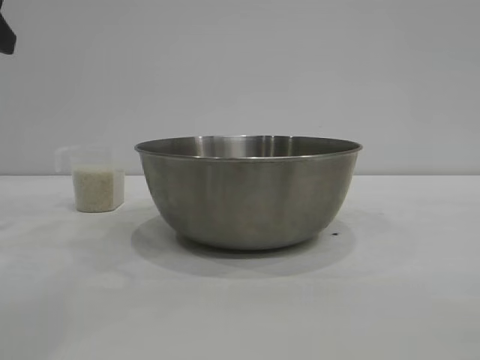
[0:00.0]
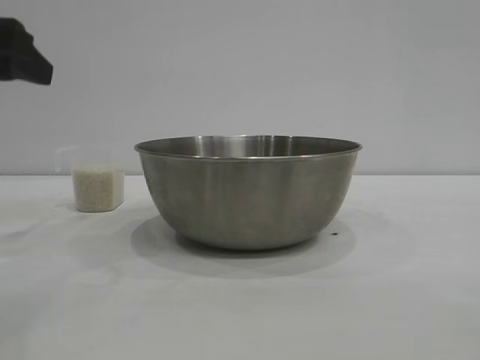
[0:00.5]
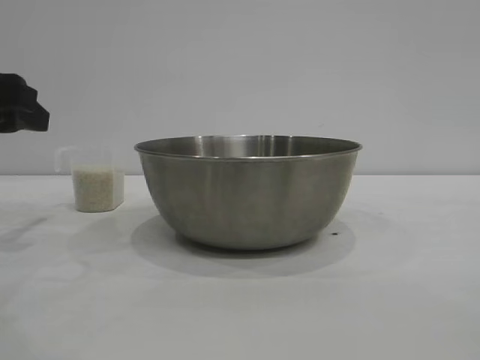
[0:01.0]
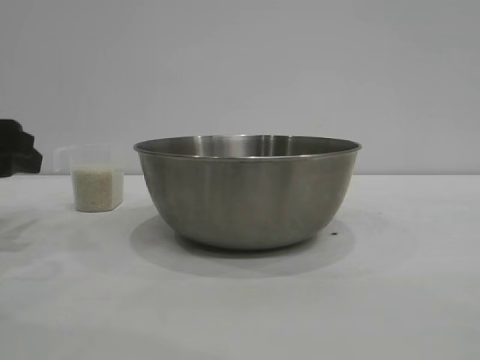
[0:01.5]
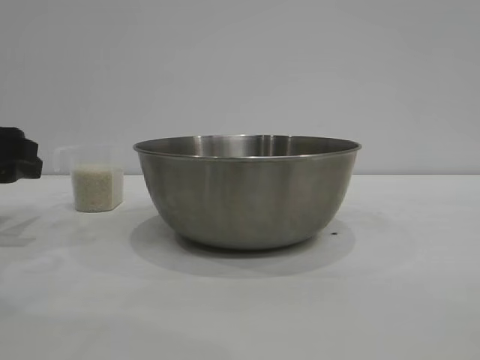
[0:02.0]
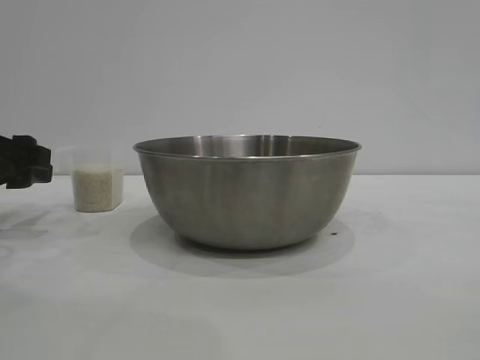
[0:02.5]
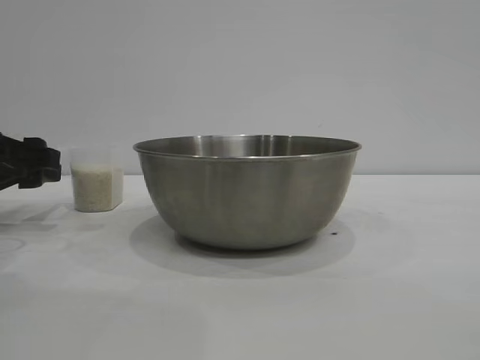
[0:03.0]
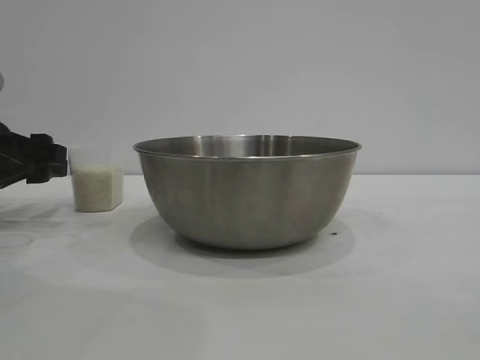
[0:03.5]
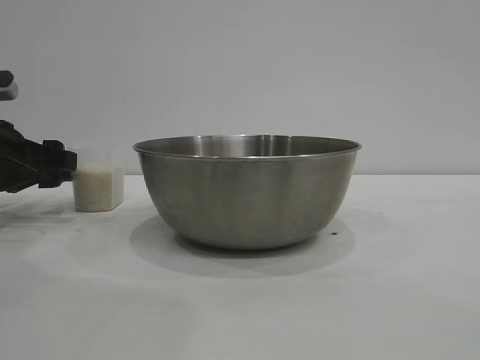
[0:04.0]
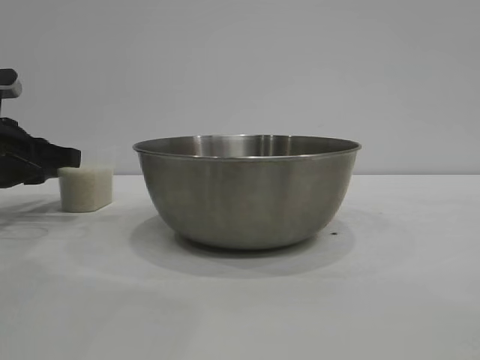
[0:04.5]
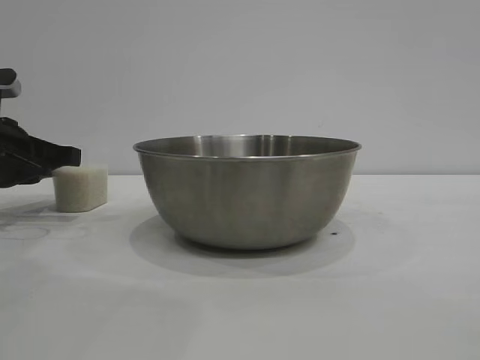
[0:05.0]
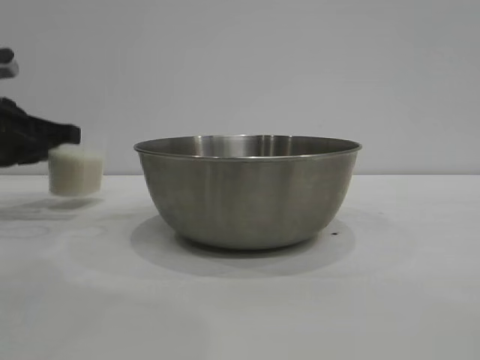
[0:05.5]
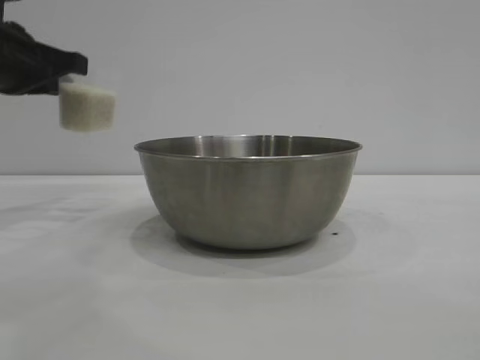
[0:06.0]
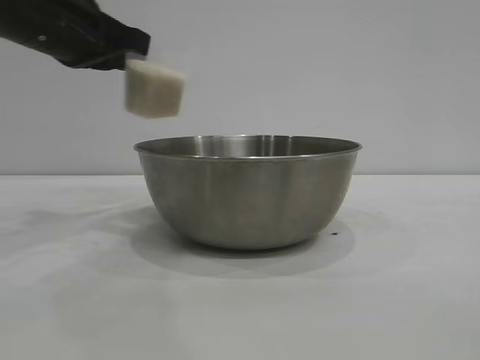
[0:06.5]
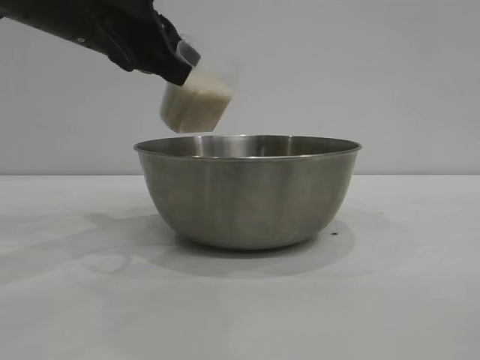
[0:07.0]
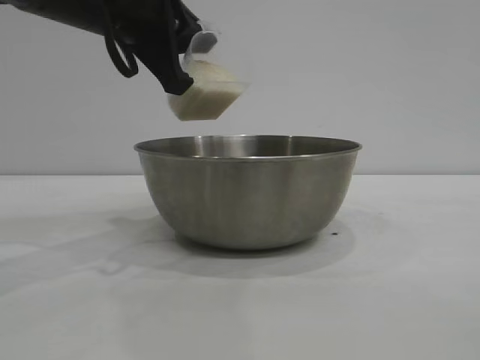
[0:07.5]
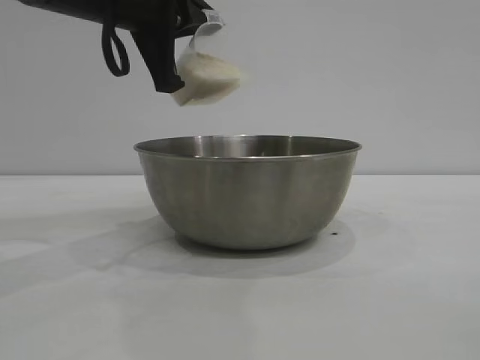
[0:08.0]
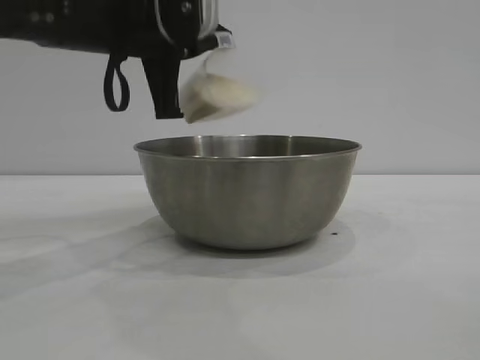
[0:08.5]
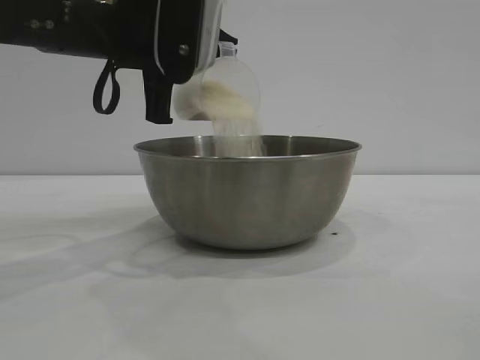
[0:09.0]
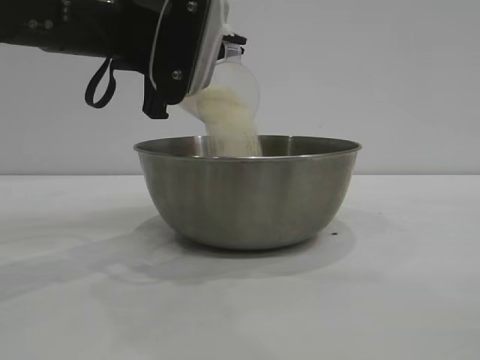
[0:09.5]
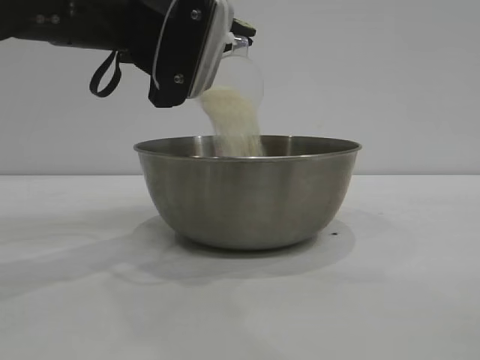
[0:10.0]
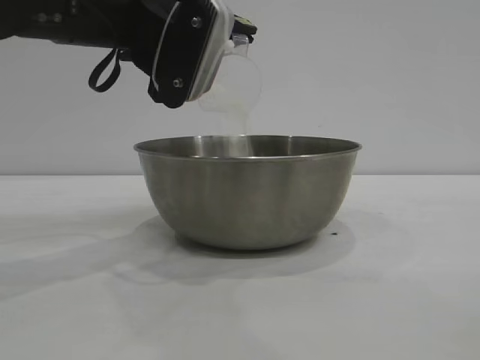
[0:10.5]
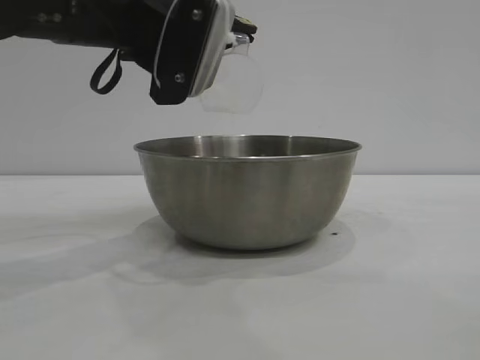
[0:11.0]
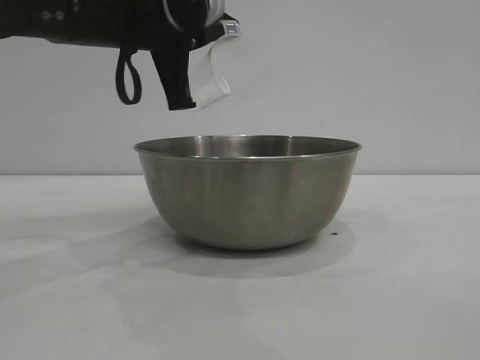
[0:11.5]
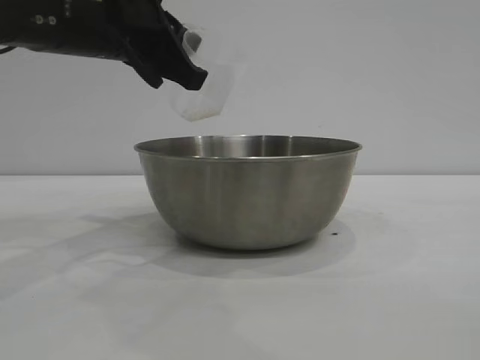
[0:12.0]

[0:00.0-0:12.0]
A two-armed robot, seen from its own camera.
Task of the whole recording: the right gripper grasp the rice container and place it in the center of the table, the left gripper grasp the rice scoop and pour the rice into the rice container.
Step, 0:00.0 to 0:05.5: Pick up the cup with rice in it with the left gripper.
Step, 0:06.0 to 0:10.5: Pour the rice from the cup into the bowl with the left gripper.

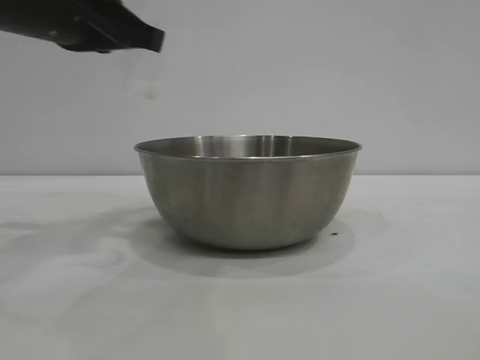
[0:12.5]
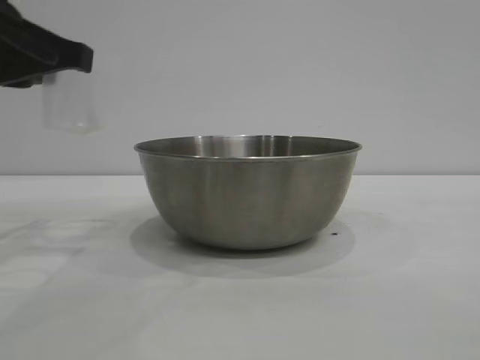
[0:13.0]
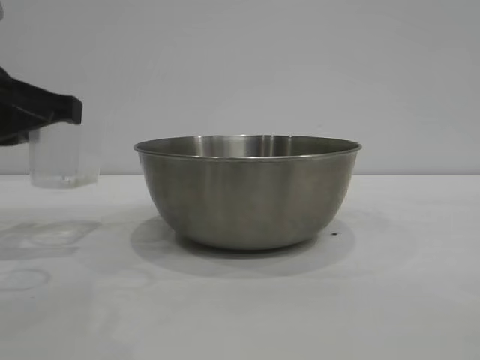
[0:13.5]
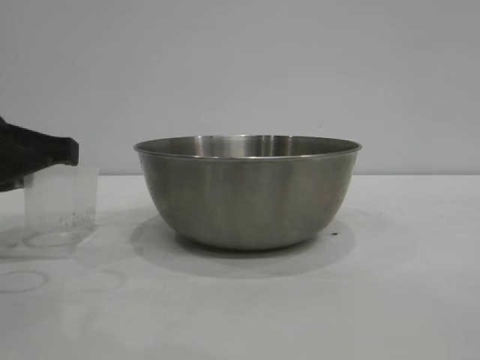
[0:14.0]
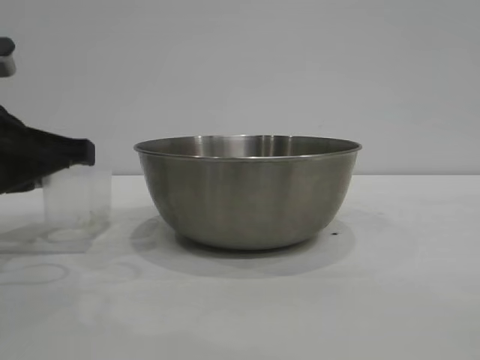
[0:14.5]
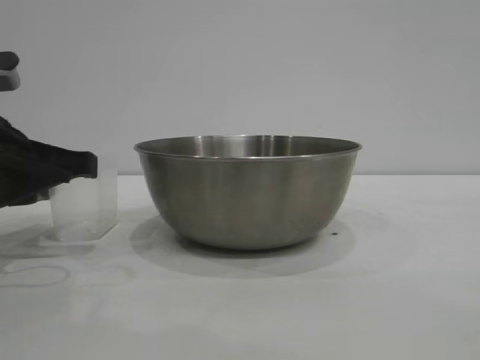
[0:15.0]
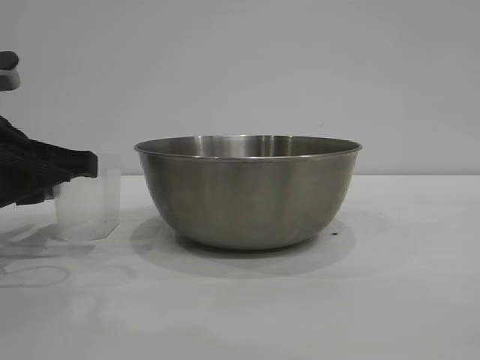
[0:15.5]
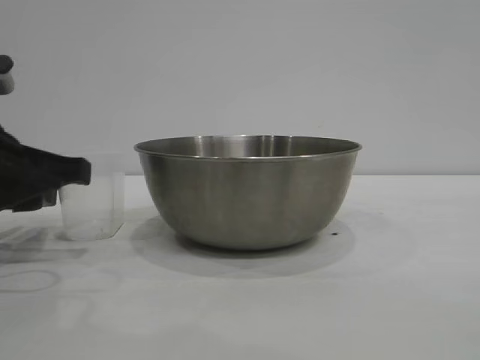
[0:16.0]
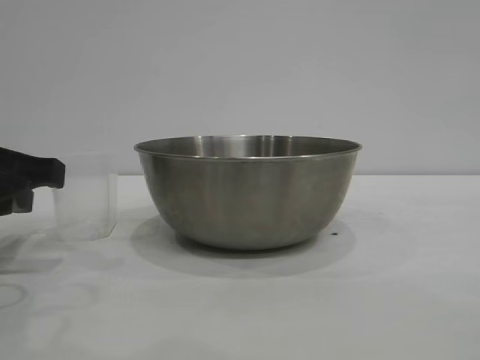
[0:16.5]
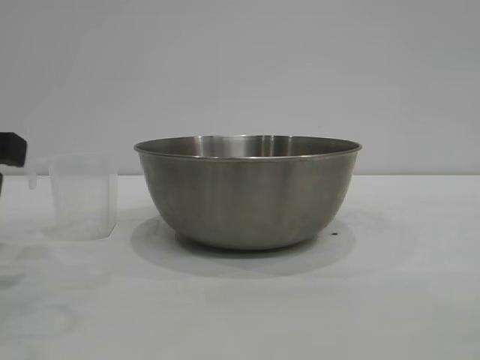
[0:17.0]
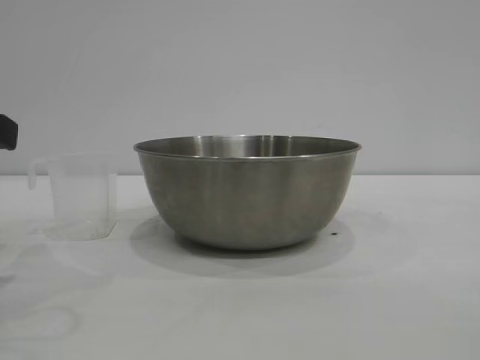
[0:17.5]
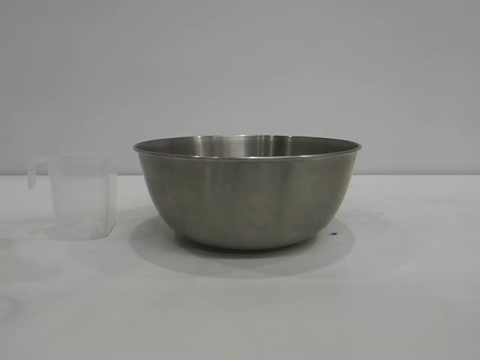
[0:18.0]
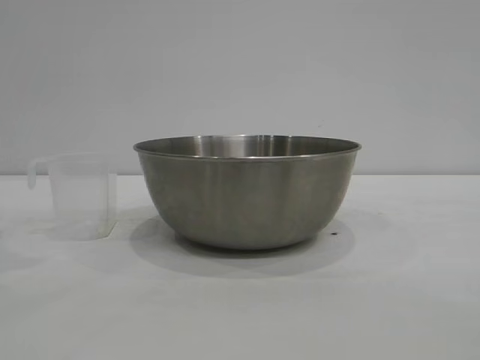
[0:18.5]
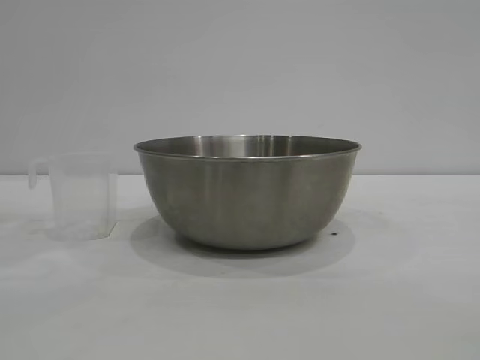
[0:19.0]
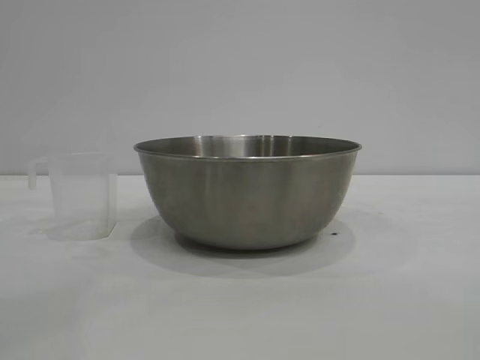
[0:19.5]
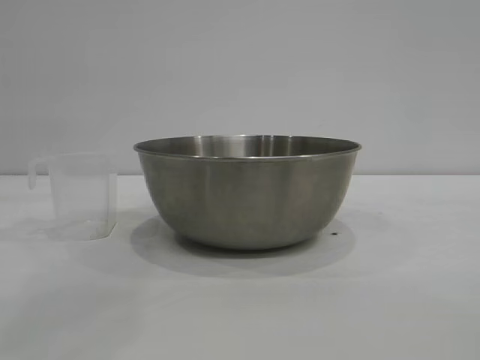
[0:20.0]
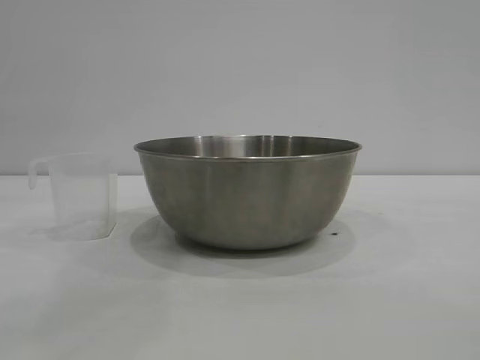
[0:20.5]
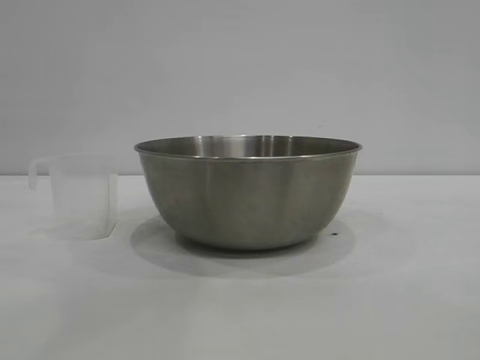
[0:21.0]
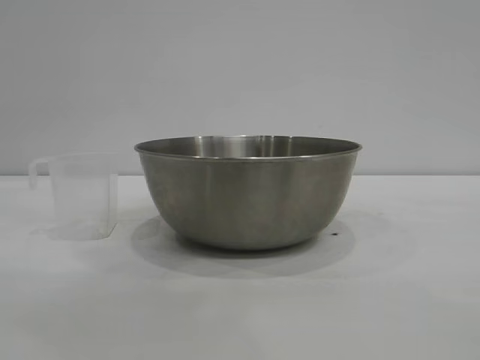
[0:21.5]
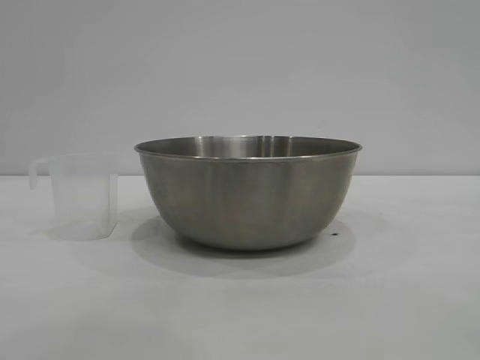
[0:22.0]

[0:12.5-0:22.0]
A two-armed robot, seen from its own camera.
Task of the whole recording: the right gripper grasp the rice container and place it in the center of the table, the left gripper grasp the rice scoop and pour the rice into the rice container.
Step, 0:12.5 to 0:16.5: Place the cup on the table with the left gripper.
